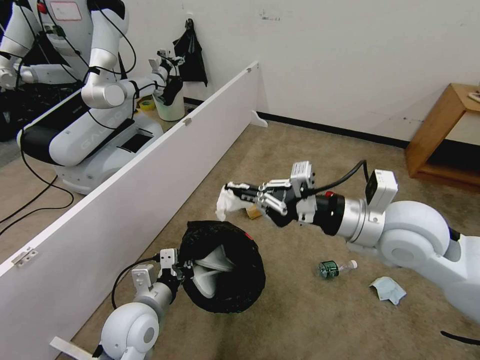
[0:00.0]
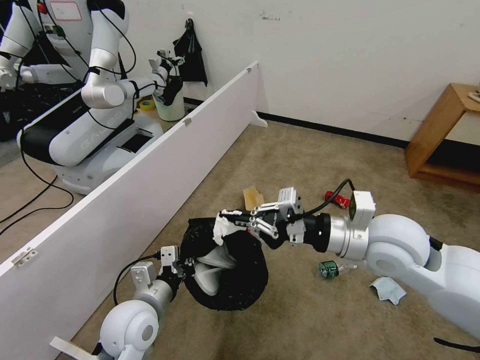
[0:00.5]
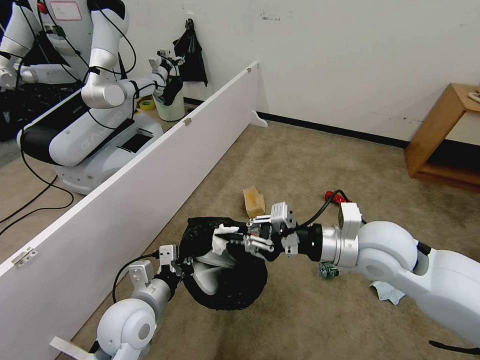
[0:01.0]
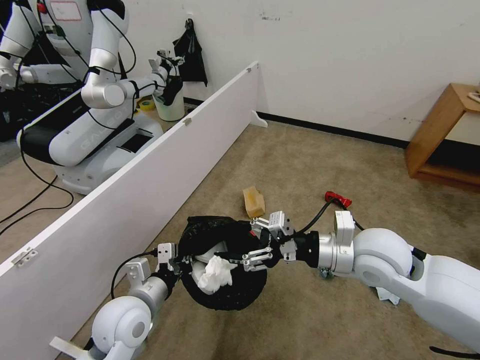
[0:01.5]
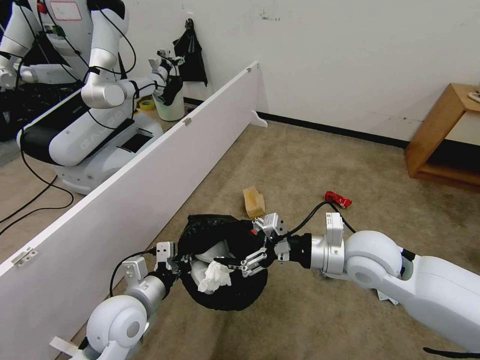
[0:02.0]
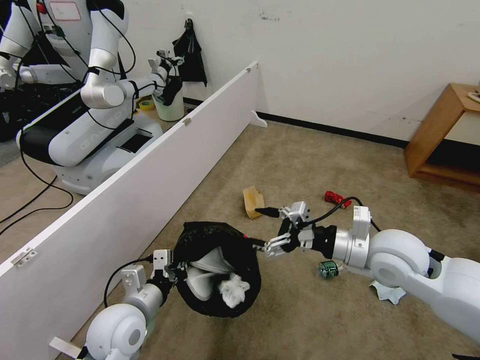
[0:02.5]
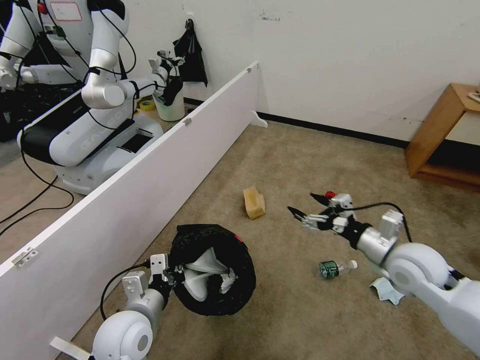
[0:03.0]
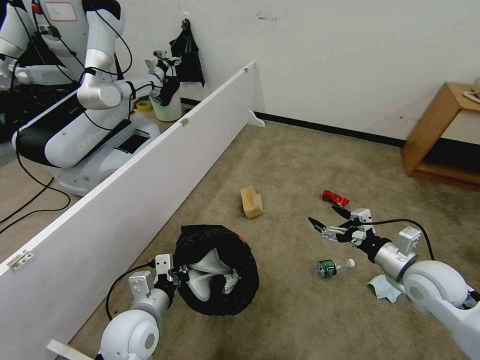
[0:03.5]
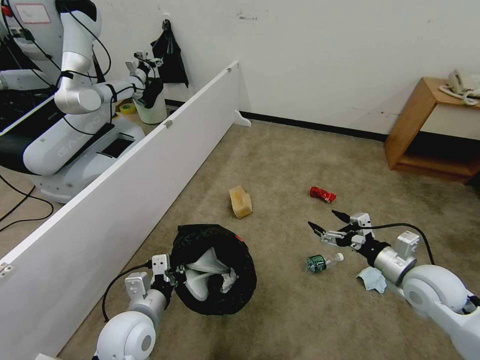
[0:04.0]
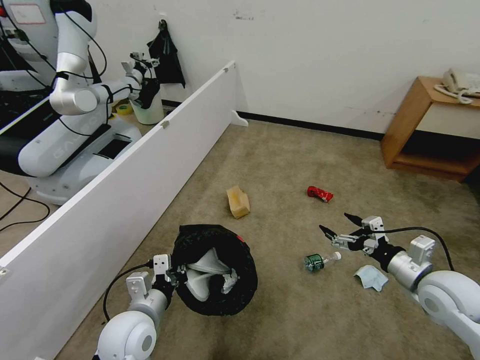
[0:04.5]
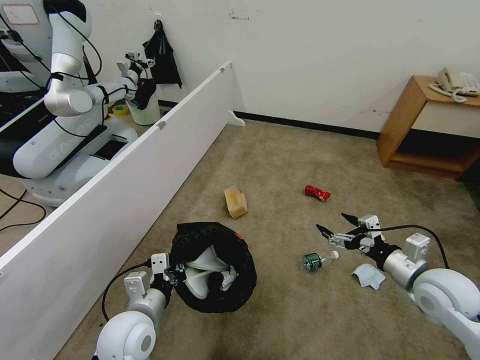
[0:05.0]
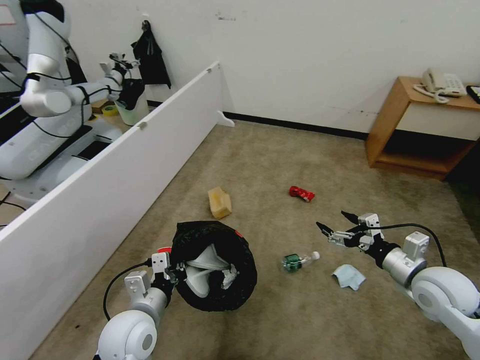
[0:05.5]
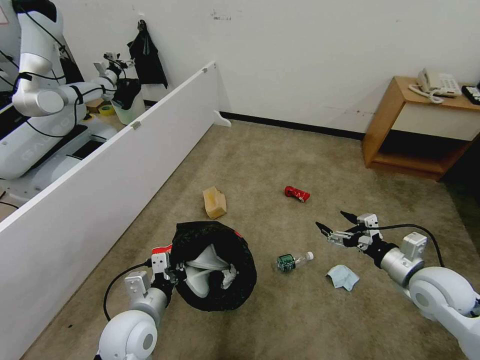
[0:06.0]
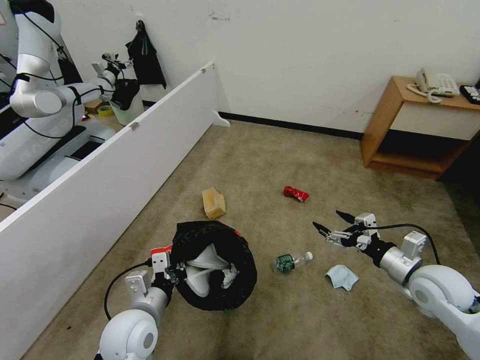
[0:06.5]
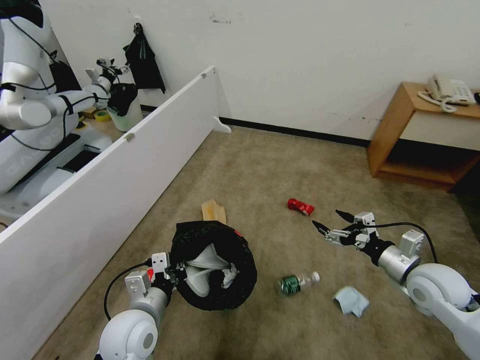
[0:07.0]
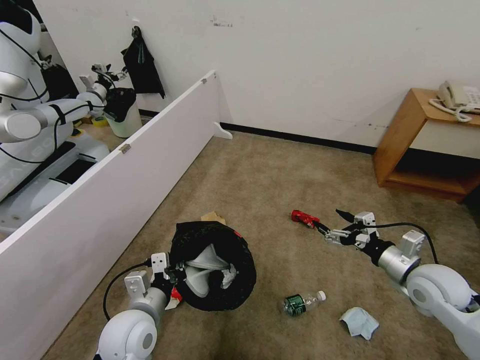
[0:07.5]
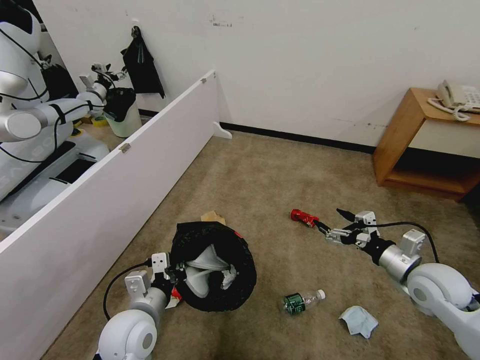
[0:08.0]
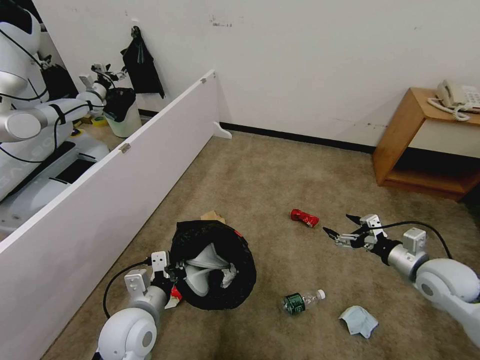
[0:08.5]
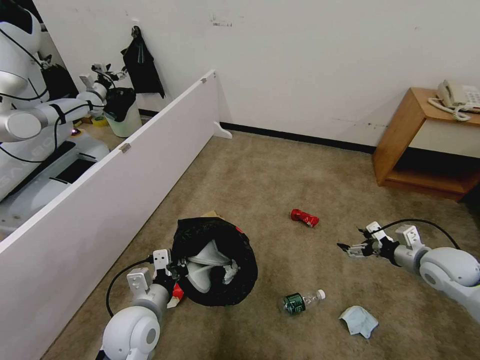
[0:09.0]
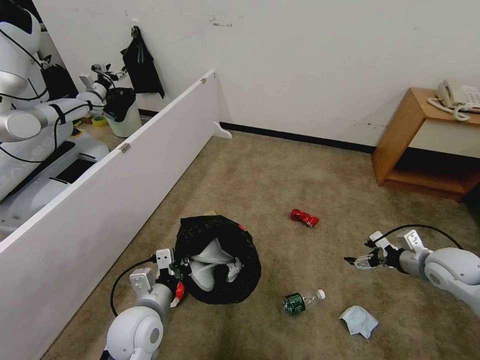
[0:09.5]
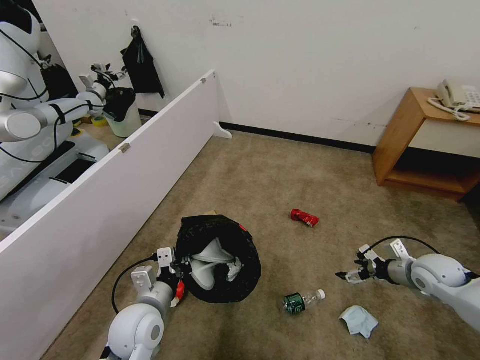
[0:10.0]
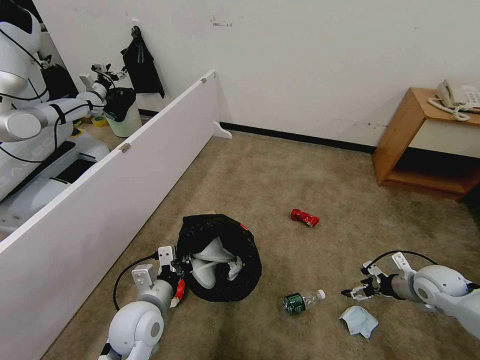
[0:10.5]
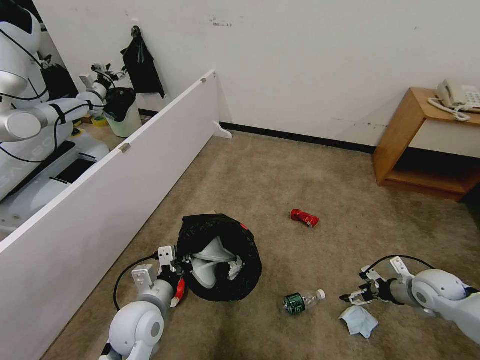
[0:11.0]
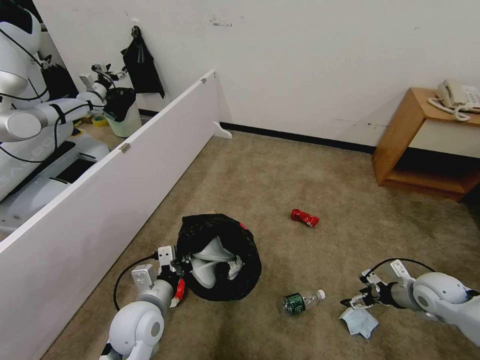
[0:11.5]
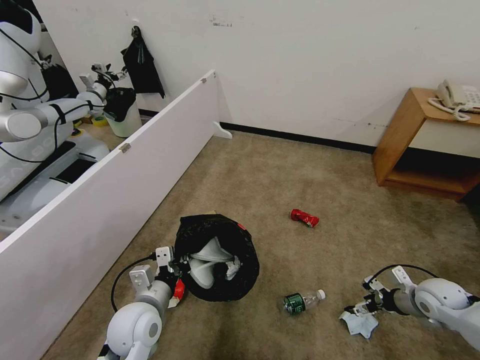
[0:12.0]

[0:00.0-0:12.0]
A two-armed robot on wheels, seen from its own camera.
Task of the whole recording: Pick up the trash bin, then pick up the garbage from the floor and place it into the trash bin.
0:00.0 to 0:02.0: The right gripper shifts approximately 10 cm downward, and opens its fingers.
0:02.0 to 0:04.0: The right gripper is displaced to the right and downward by roughly 20 cm.
0:08.0 to 0:10.0: The right gripper moves to the right, downward and forward, some 10 cm.
0:10.0 to 0:12.0: The right gripper ends up some 5 cm from where it was.

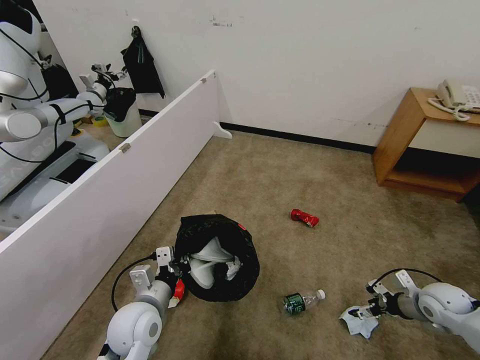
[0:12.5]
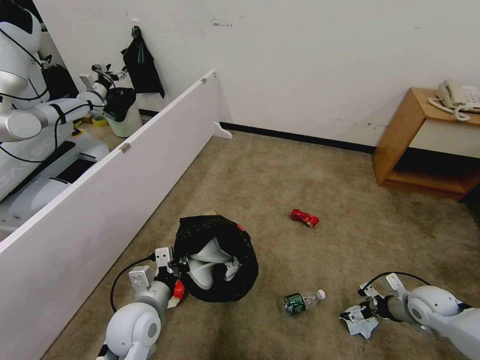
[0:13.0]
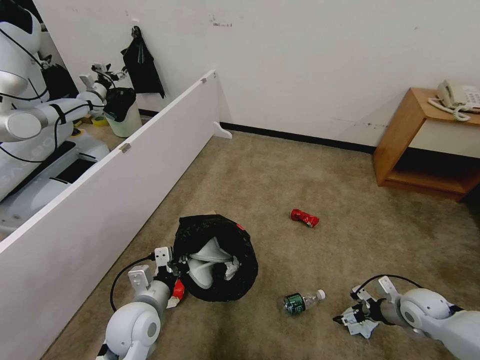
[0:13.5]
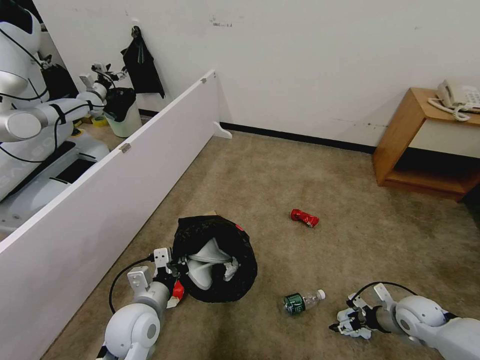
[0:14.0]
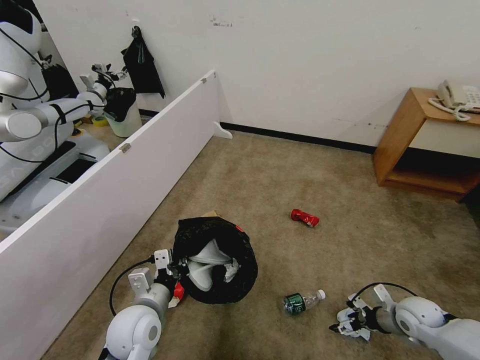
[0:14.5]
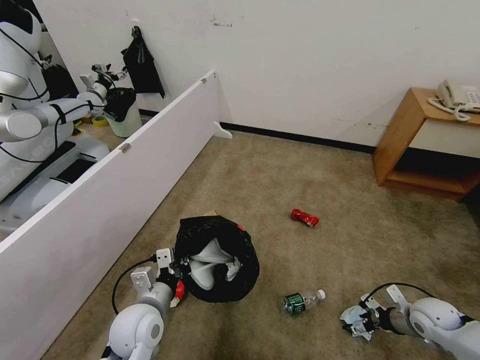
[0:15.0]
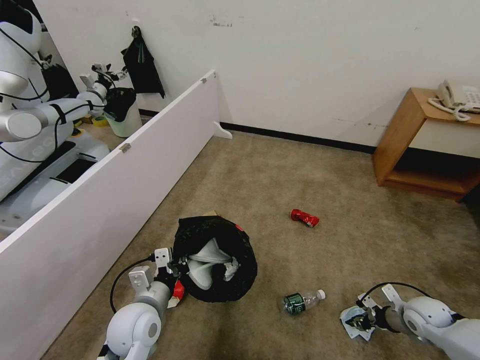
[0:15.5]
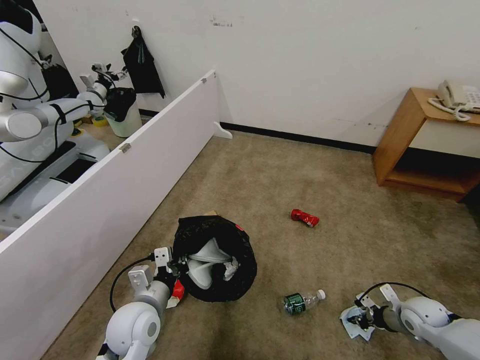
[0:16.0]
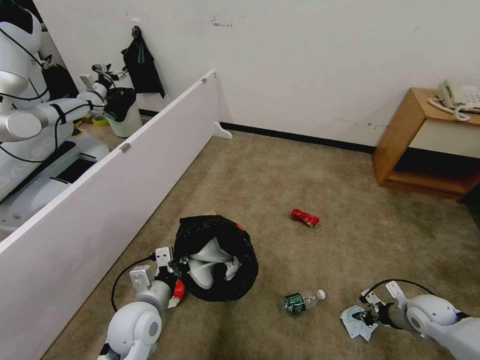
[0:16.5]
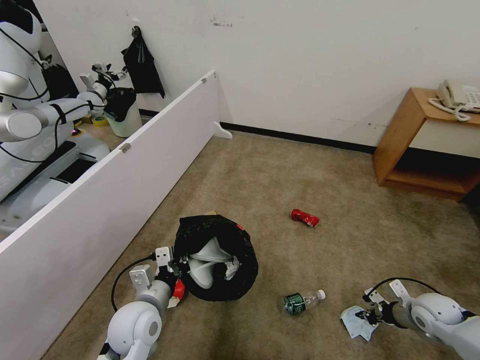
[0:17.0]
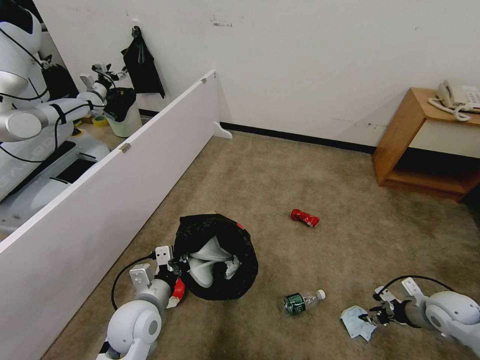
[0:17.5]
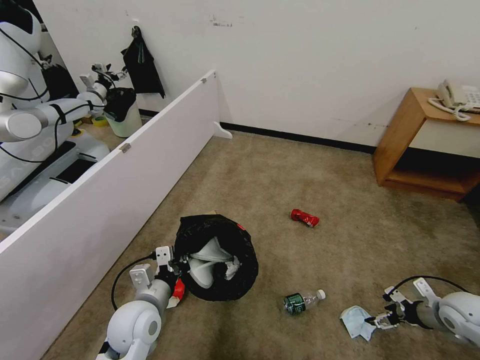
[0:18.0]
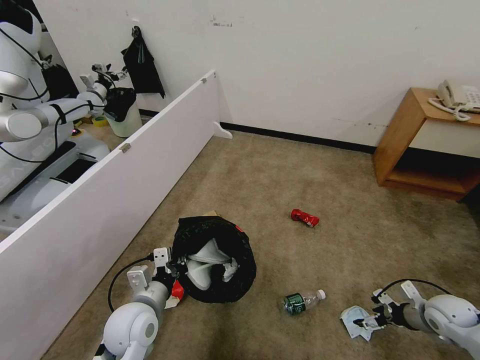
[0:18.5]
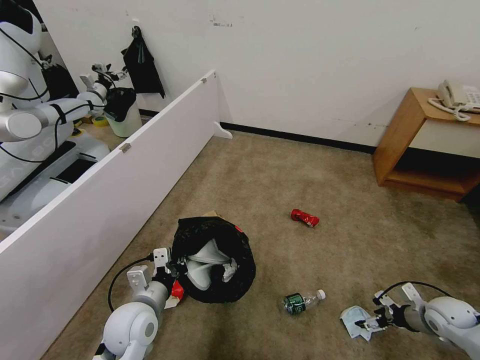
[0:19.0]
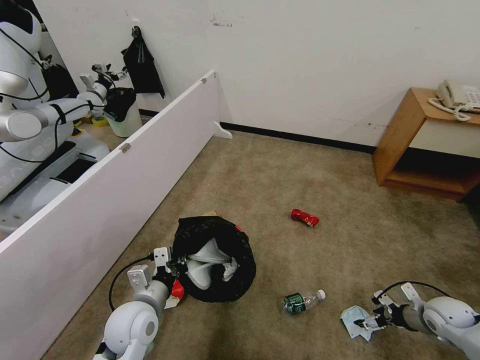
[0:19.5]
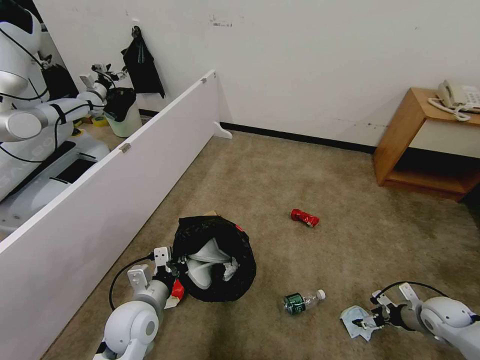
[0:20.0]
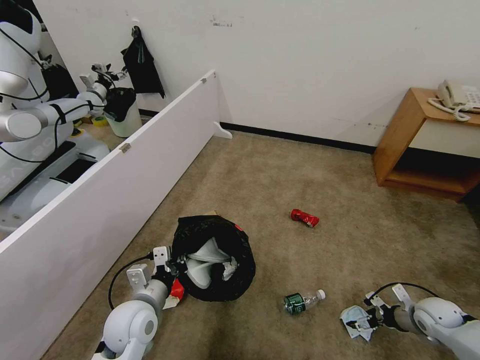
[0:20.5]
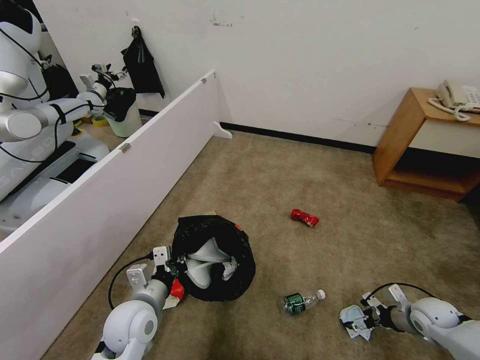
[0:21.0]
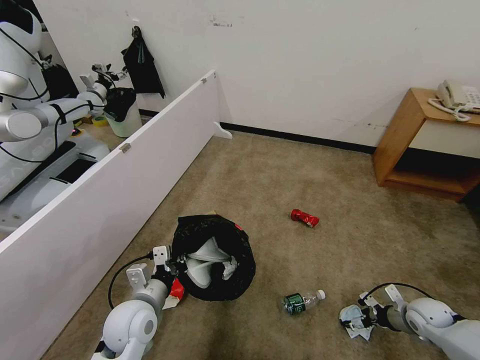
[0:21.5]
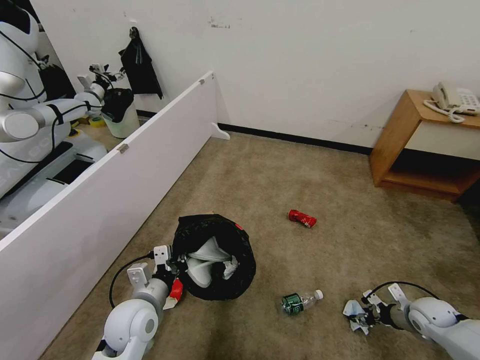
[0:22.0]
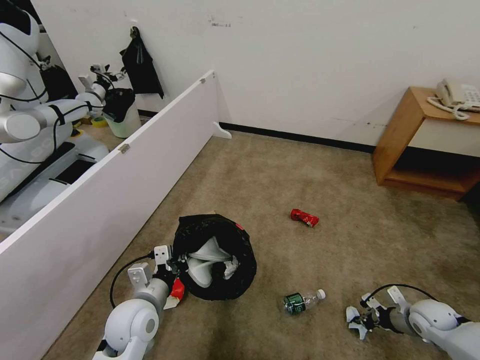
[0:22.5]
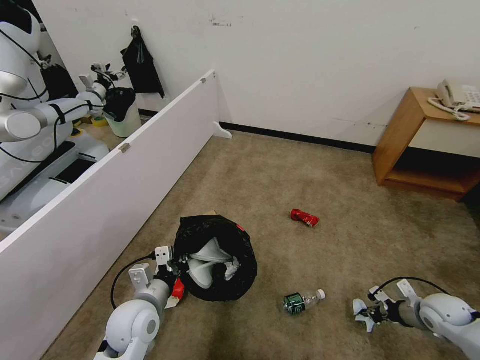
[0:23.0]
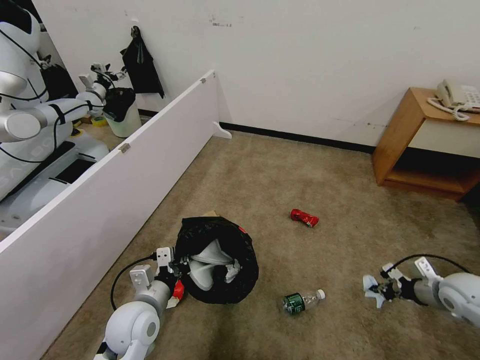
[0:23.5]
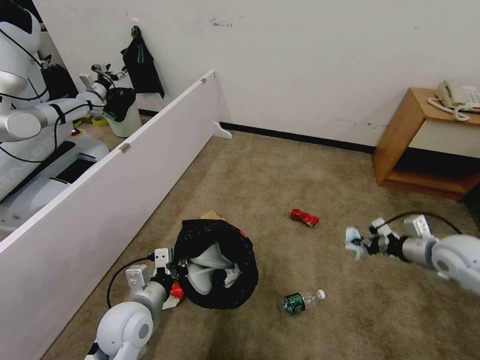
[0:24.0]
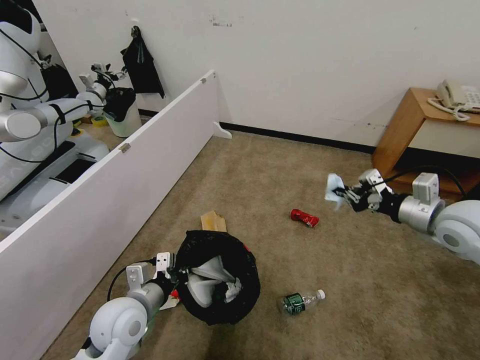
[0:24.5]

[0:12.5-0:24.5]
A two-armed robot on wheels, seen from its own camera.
Task of the whole recording: Pick up the trash bin, then pick up the garbage from the floor and place it into the trash bin.
0:12.5 to 0:14.5: The right gripper shifts by approximately 5 cm.
0:14.5 to 0:16.5: The right gripper closes up.
0:16.5 to 0:18.5: The right gripper opens.
0:18.5 to 0:20.5: The grippers move only a little.
0:20.5 to 0:22.5: The right gripper closes its fingers.
0:22.5 to 0:24.5: The right gripper travels upward by approximately 30 cm.

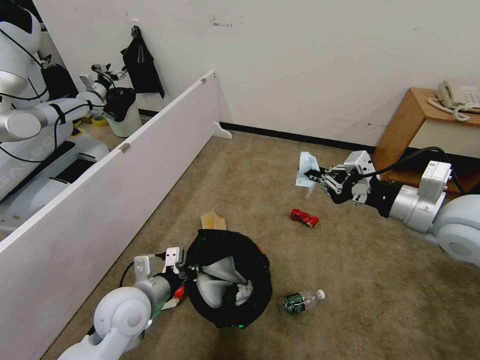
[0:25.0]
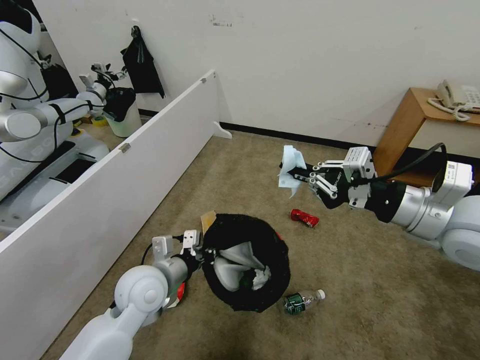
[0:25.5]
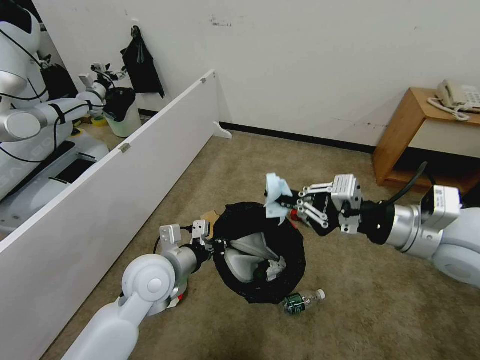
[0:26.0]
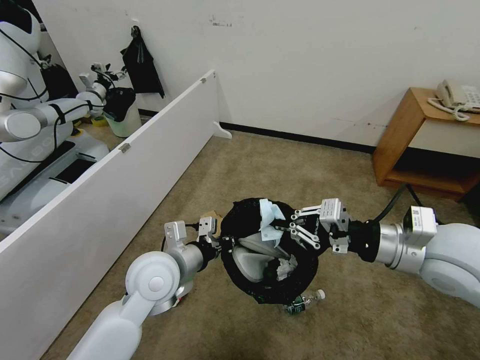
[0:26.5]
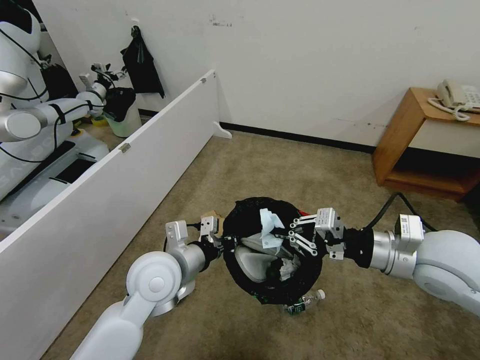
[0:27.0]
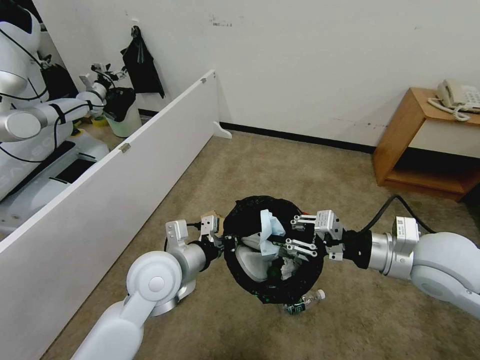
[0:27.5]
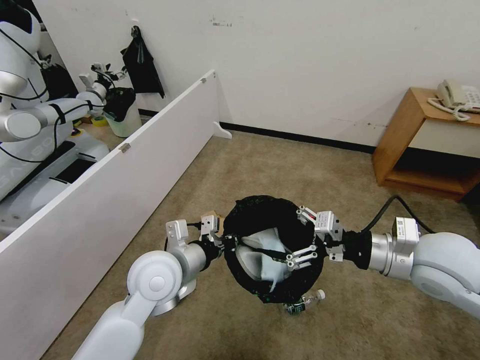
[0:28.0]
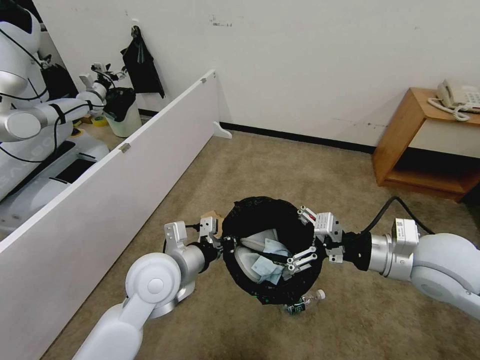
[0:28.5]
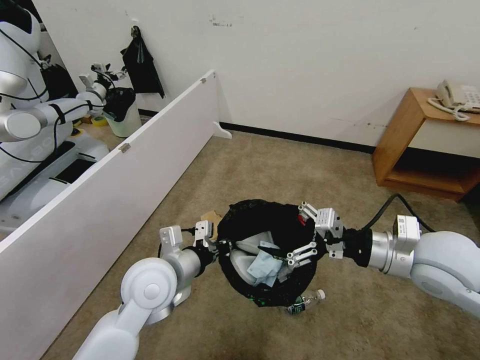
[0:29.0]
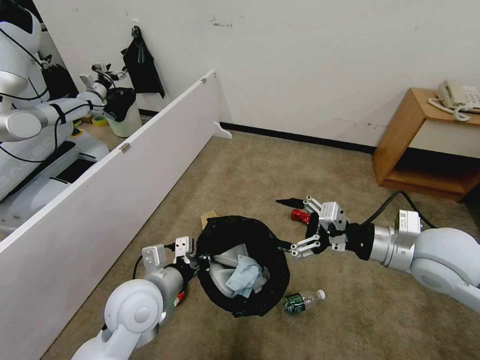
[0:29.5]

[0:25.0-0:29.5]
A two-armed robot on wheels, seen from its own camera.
Task of the whole recording: Pick up the trash bin, then pick up the garbage from the floor and place it into the trash bin.
0:25.0 to 0:27.0: The right gripper moves downward, approximately 5 cm. The left gripper is displaced upward and to the right by roughly 10 cm.
0:27.0 to 0:29.5: The right gripper opens its fingers; the left gripper shifts by about 5 cm.
